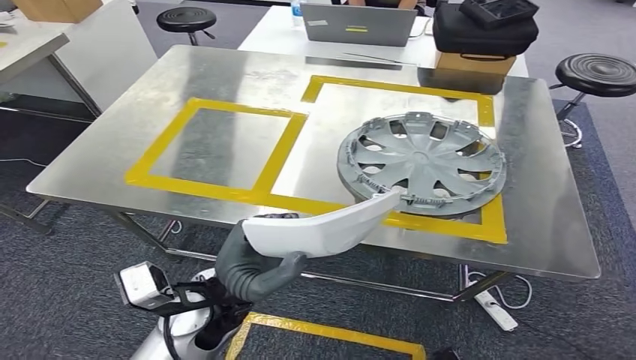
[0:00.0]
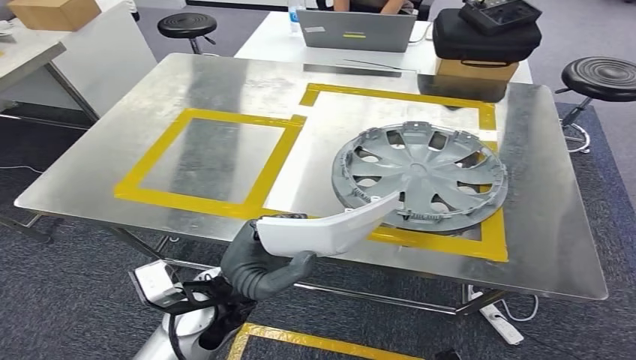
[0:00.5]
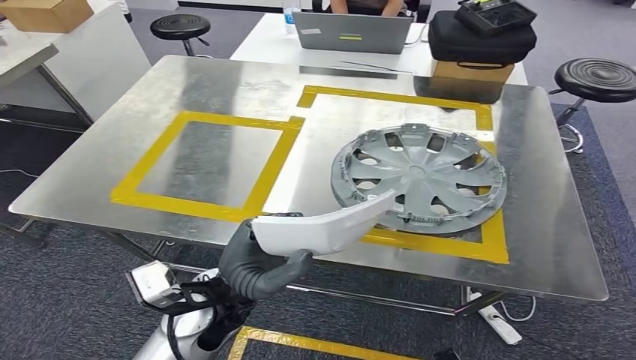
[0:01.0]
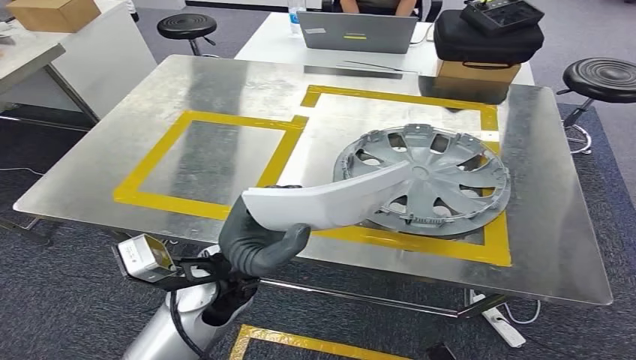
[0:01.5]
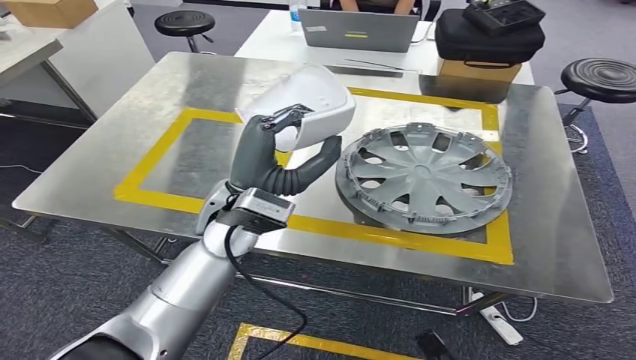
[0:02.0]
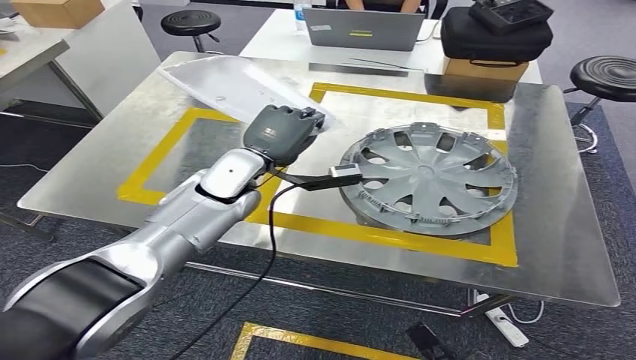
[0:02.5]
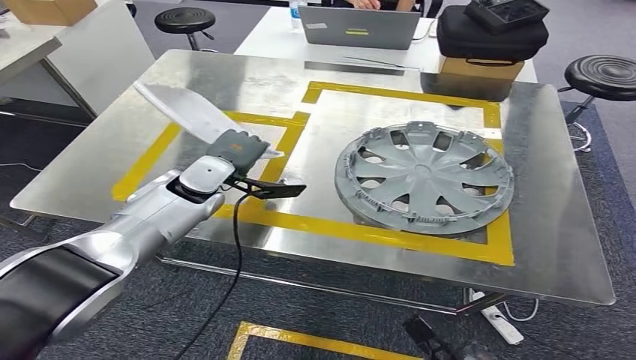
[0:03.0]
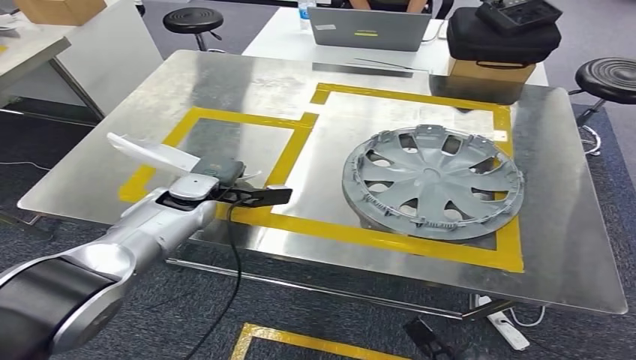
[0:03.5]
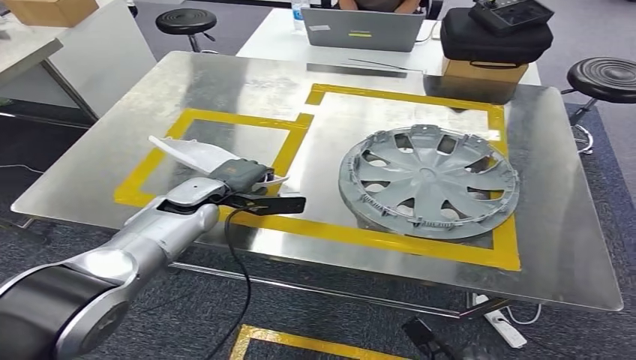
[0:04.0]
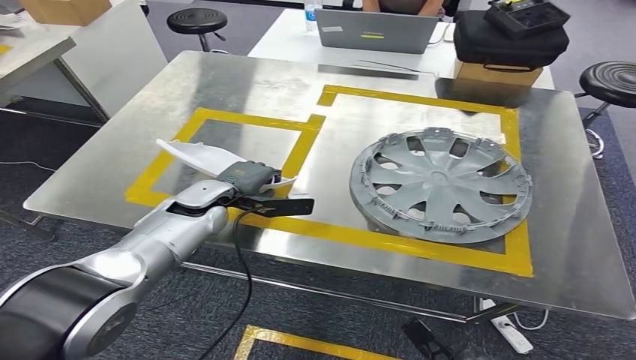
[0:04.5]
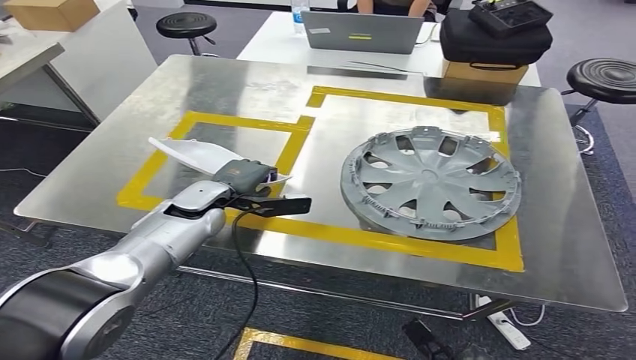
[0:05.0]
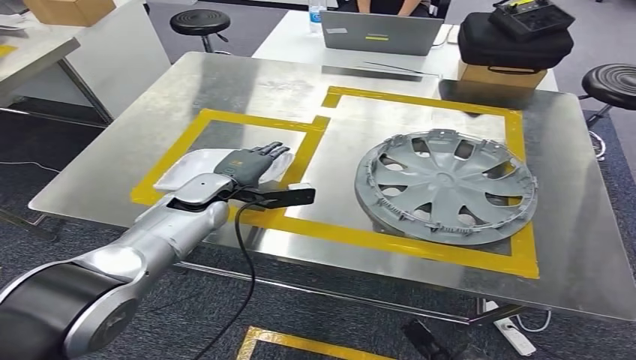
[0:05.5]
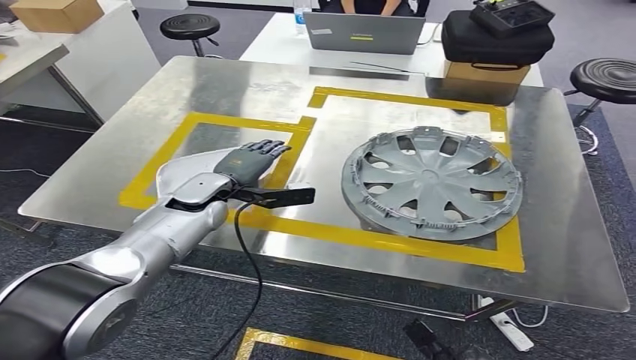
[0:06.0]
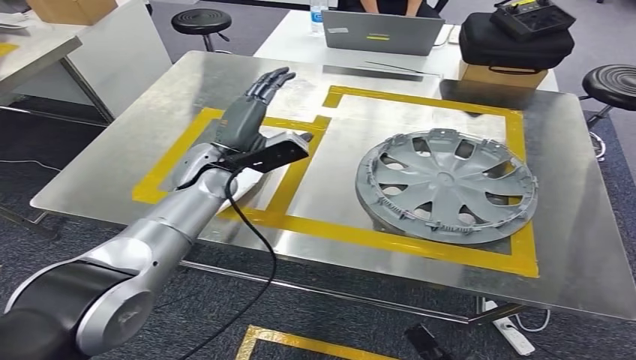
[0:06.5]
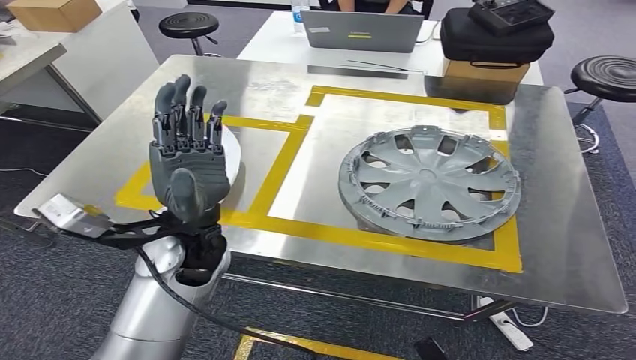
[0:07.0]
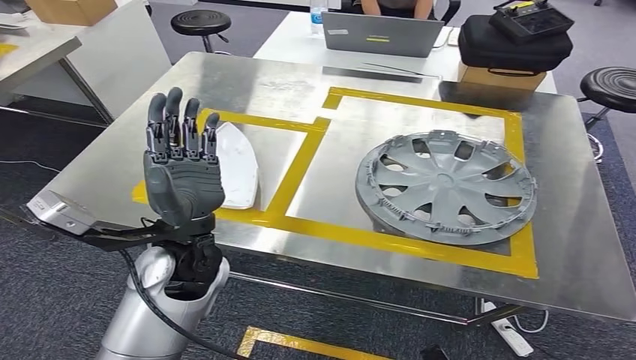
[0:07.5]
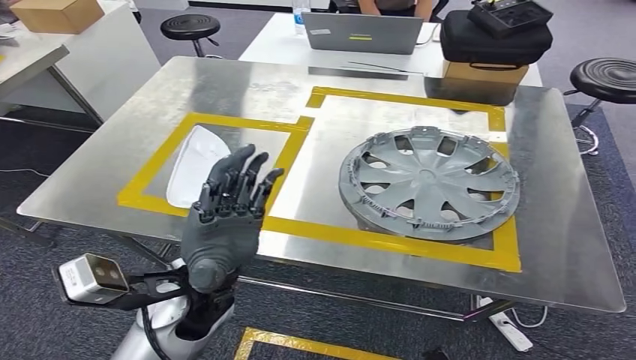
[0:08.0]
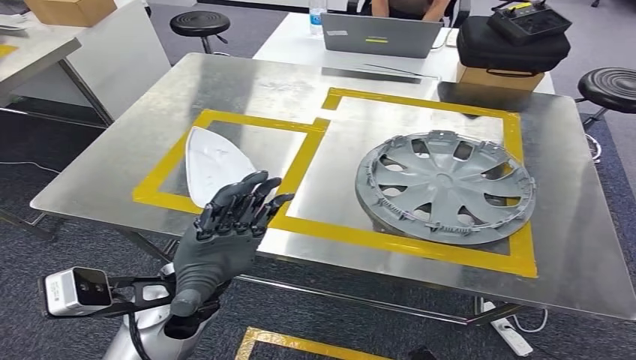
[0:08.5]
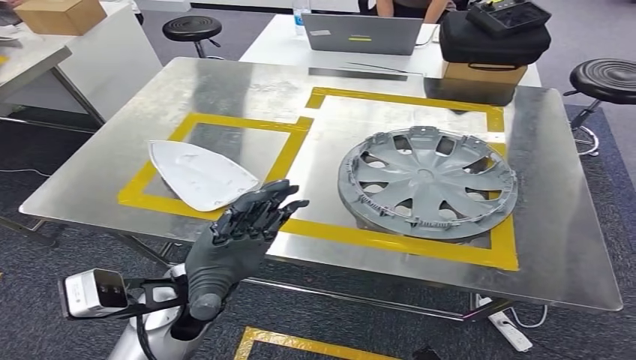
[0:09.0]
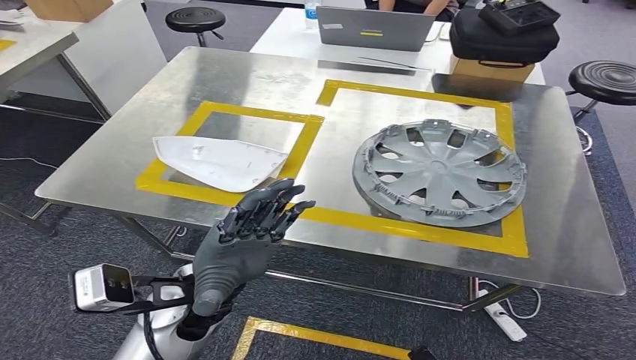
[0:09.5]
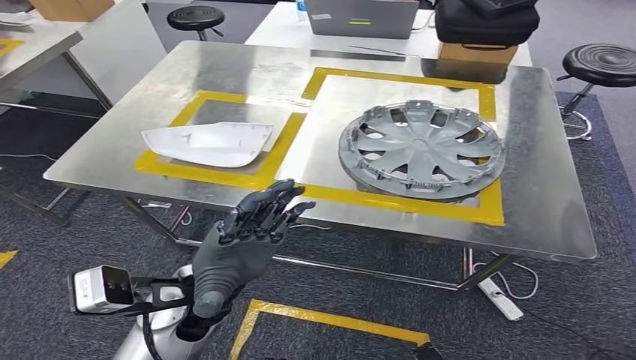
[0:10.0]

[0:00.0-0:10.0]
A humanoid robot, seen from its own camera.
Step, 0:00.0 to 0:05.5: Insert the small parts into the corresponding holes on the workbench.
0:06.0 to 0:08.0: The left hand heads backward and to the right, covering about 20 cm. Meanwhile the right hand heads backward, covering about 5 cm.

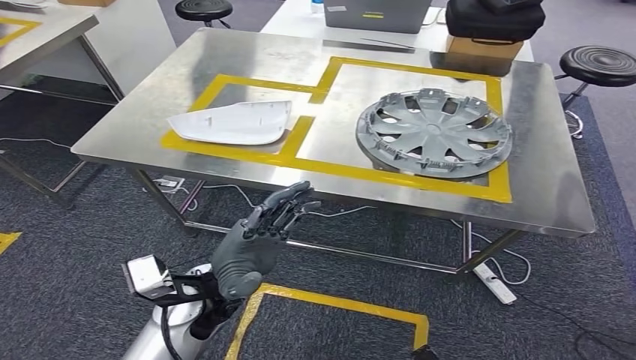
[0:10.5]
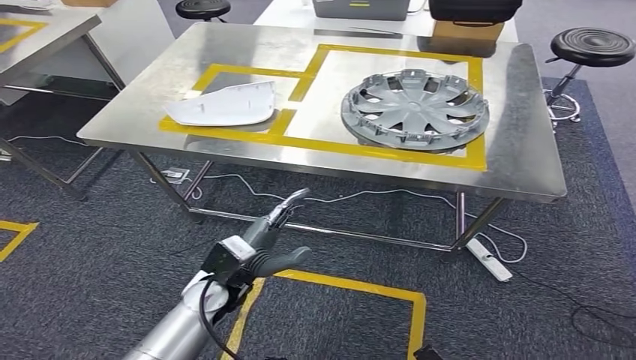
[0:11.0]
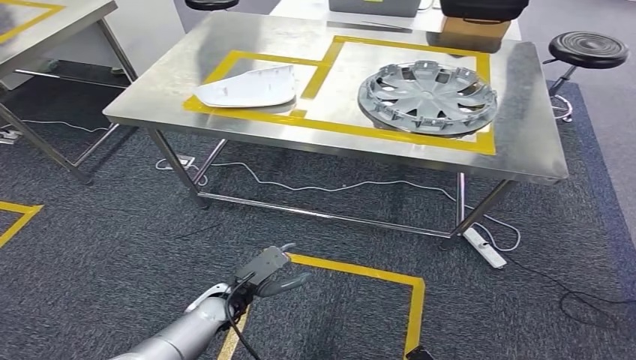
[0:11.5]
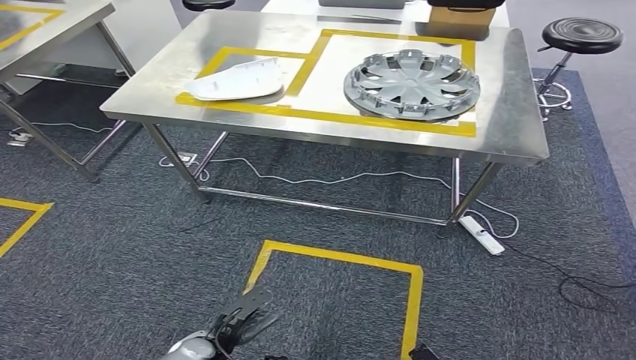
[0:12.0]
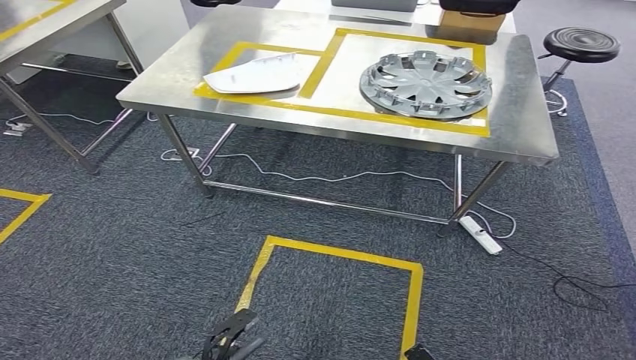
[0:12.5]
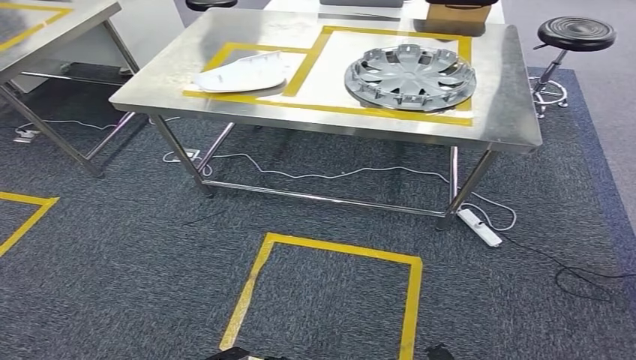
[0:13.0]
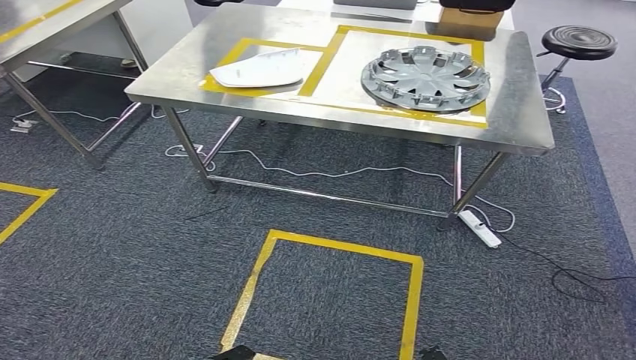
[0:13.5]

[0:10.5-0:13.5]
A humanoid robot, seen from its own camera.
Step, 0:10.5 to 0:13.5: Move to the initial position of the workbench.
